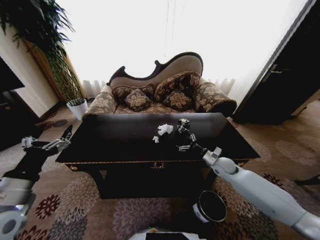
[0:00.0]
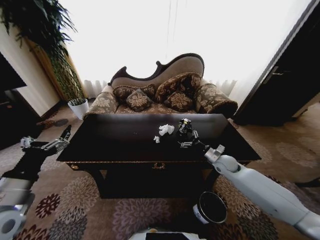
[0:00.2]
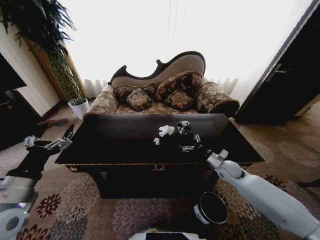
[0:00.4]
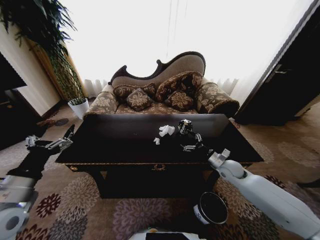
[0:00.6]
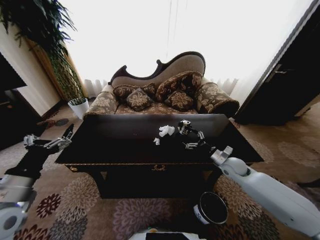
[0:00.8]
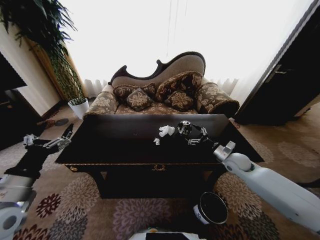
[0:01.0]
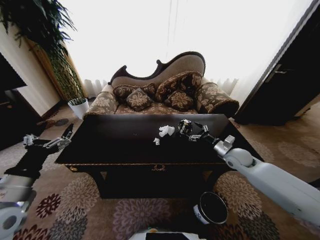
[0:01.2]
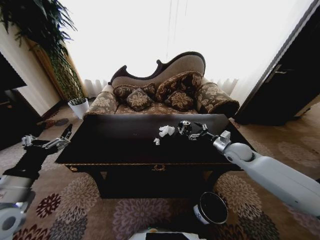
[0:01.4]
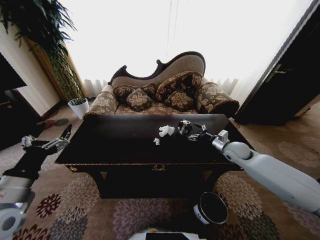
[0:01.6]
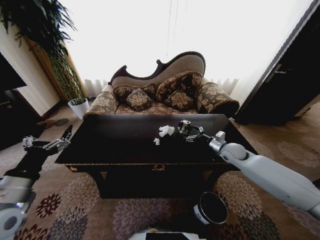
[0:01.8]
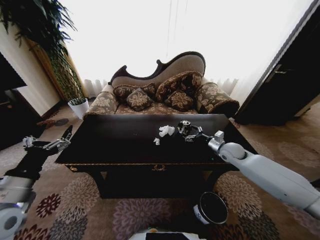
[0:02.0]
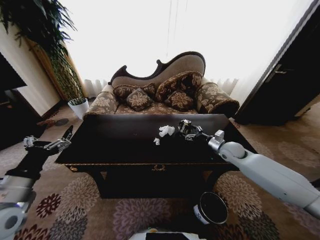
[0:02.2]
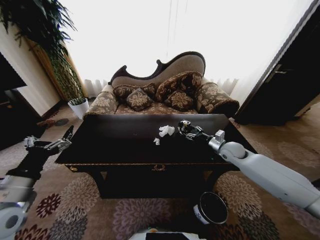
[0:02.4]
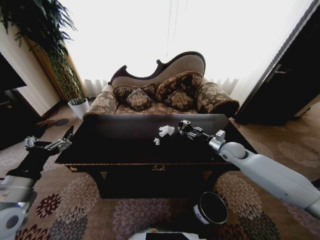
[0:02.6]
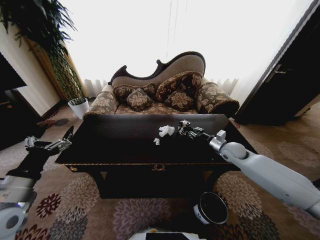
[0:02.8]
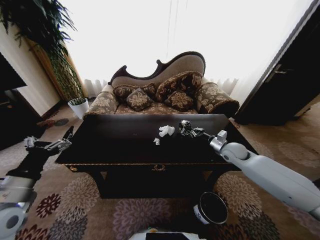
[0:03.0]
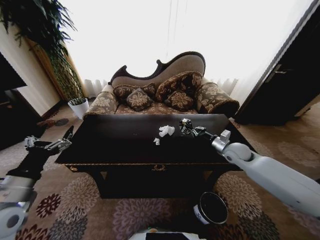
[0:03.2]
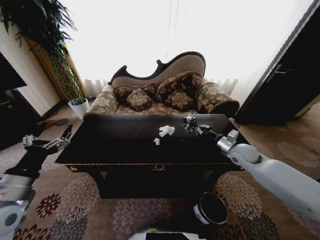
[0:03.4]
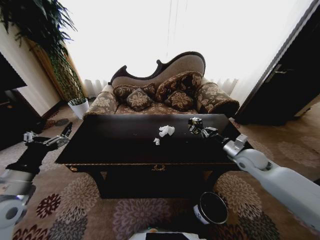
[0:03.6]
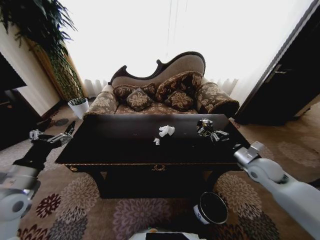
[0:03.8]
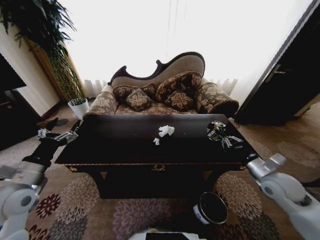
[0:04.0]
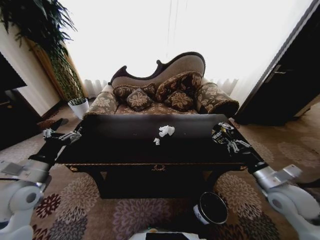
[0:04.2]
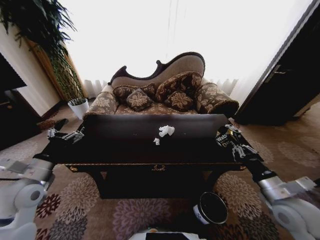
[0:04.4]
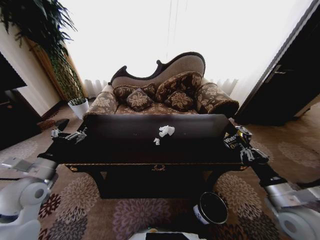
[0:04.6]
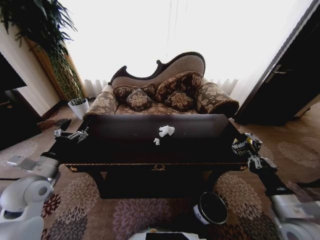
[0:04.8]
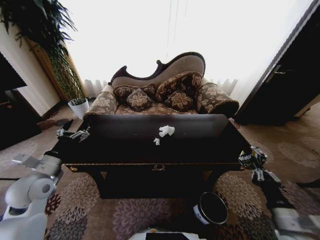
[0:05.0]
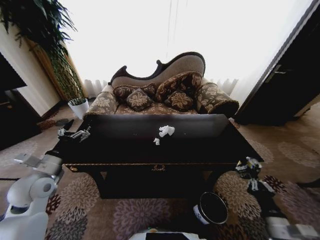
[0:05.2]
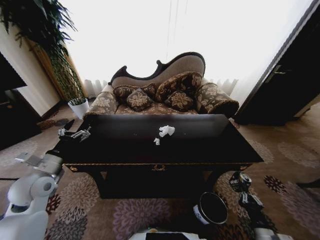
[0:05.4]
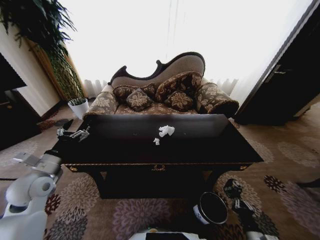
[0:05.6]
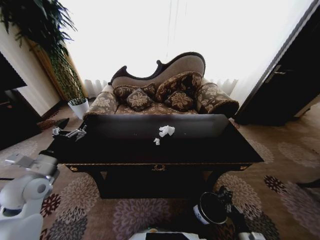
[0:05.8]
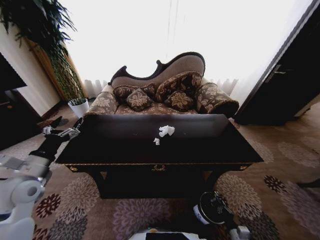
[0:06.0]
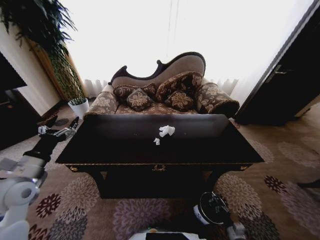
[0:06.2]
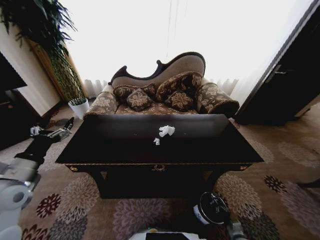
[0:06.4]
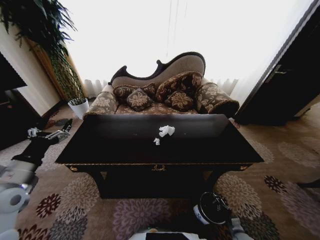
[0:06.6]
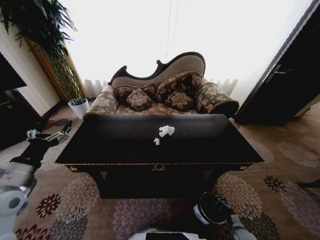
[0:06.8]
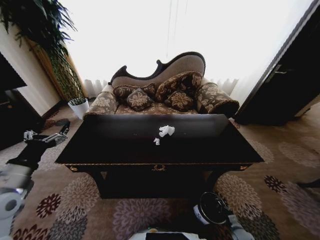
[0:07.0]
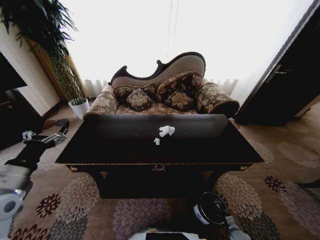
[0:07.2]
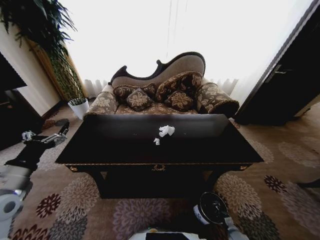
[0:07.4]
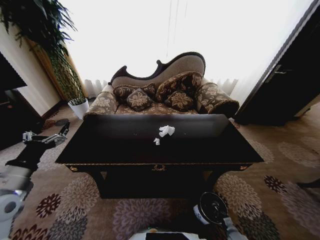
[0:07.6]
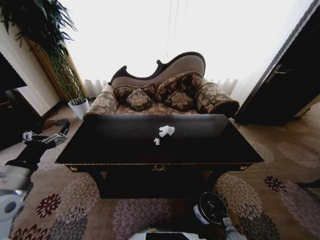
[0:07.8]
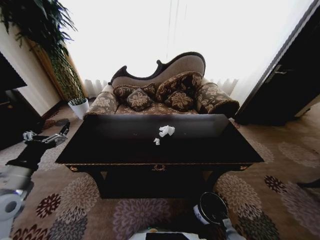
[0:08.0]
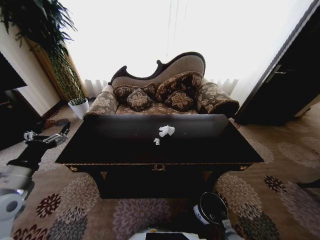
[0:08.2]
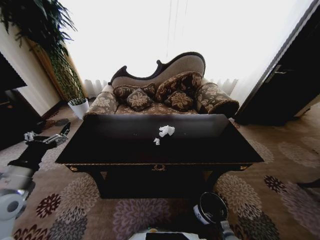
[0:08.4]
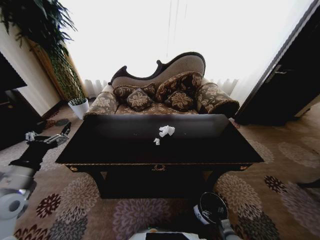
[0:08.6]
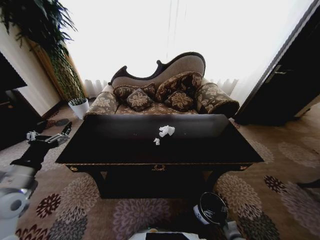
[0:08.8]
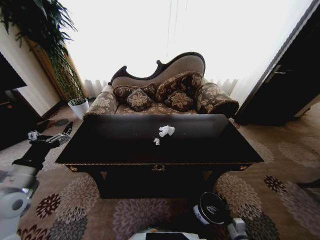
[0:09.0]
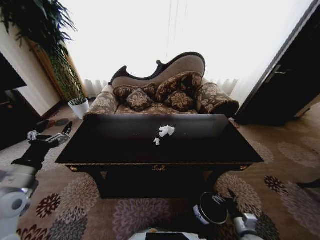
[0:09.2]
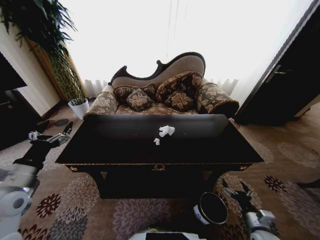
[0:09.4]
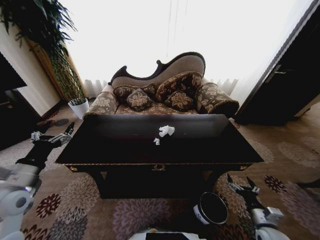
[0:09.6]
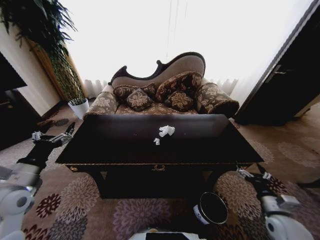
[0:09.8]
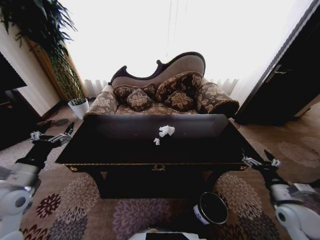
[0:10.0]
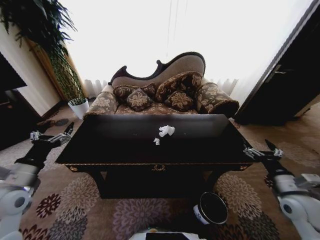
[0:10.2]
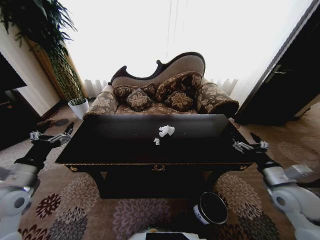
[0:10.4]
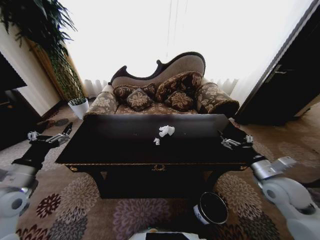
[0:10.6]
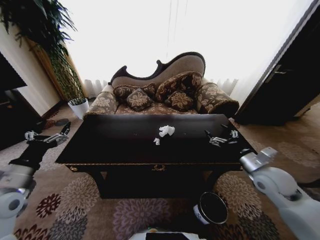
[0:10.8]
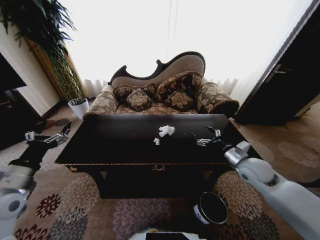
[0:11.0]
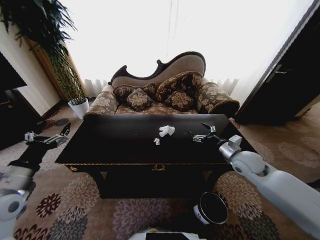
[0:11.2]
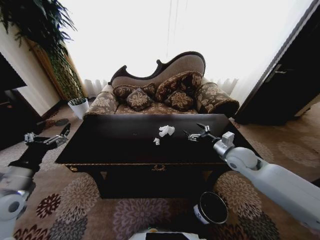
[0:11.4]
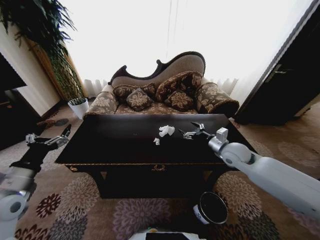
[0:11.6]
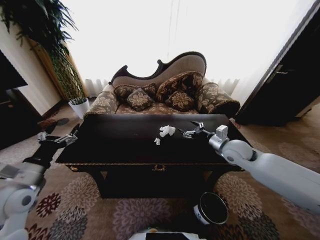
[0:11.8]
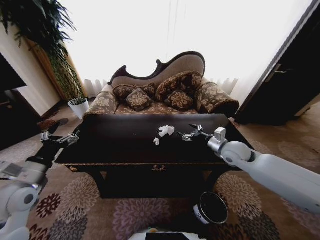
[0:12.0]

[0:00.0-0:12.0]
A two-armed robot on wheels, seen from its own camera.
Task of the whole recording: Move to the front of the table and place the trash on the table into the trash bin.
0:00.0 to 0:01.6: The right gripper goes roughly 10 cm upward.
0:01.6 to 0:03.0: The right gripper closes.
0:03.0 to 0:04.4: The left gripper travels forward by some 5 cm. Meanwhile the right gripper travels backward by some 25 cm.
0:04.4 to 0:06.0: The right gripper shifts about 35 cm downward.
0:06.0 to 0:07.6: The left gripper shifts by roughly 5 cm; the right gripper travels downward, forward and to the right by roughly 15 cm.
0:09.0 to 0:10.4: The right gripper moves upward, approximately 30 cm.
0:10.4 to 0:12.0: The right gripper heads forward and to the left, covering approximately 20 cm.

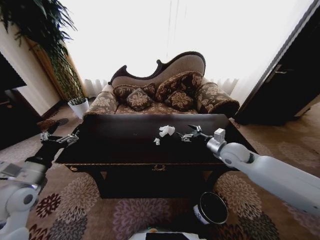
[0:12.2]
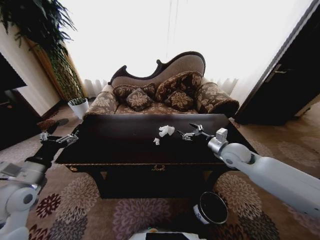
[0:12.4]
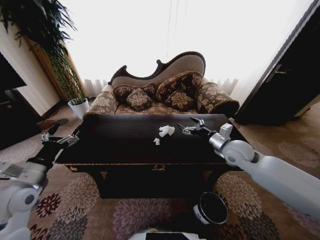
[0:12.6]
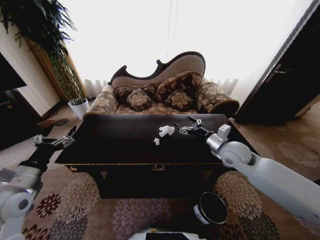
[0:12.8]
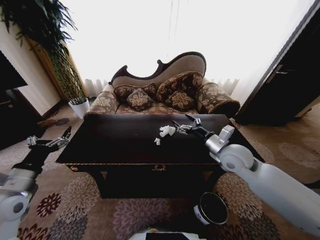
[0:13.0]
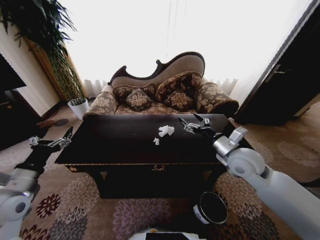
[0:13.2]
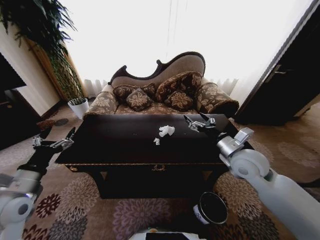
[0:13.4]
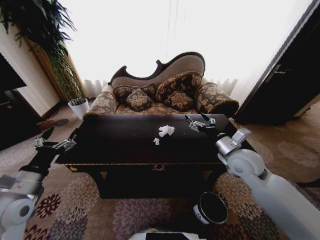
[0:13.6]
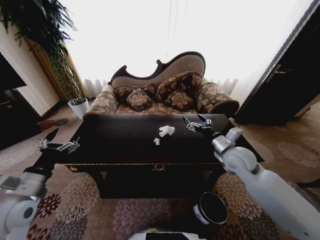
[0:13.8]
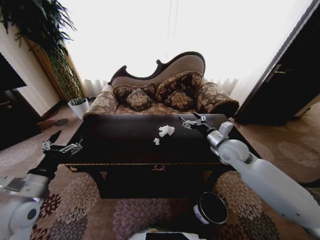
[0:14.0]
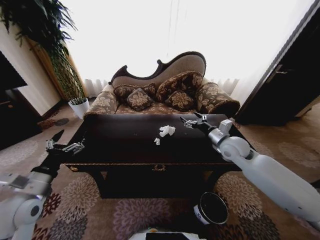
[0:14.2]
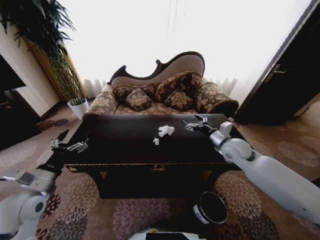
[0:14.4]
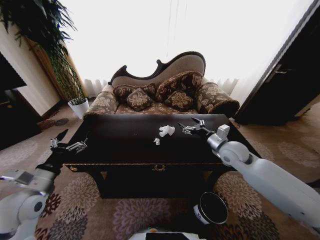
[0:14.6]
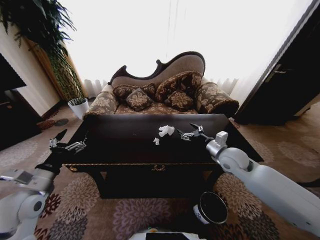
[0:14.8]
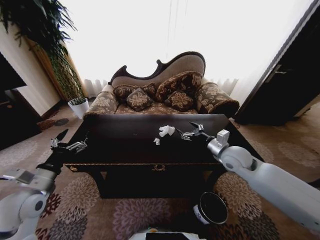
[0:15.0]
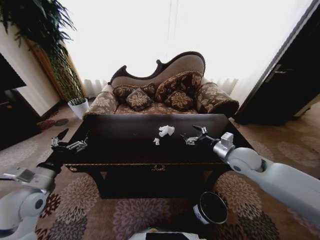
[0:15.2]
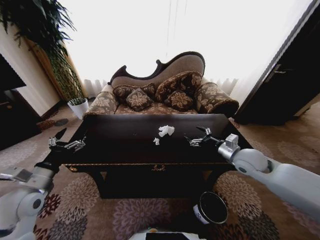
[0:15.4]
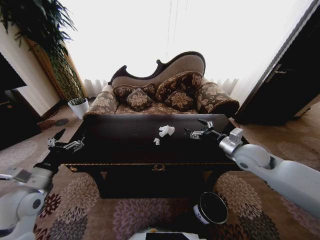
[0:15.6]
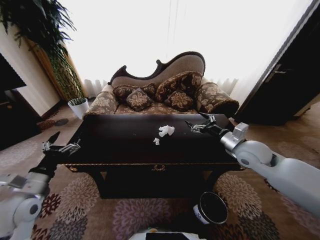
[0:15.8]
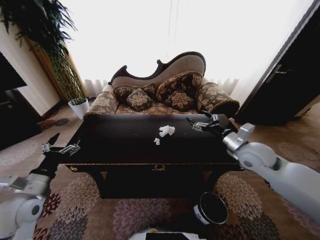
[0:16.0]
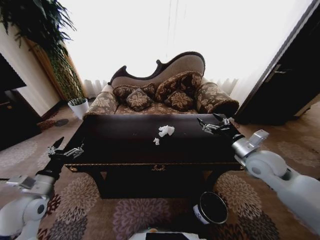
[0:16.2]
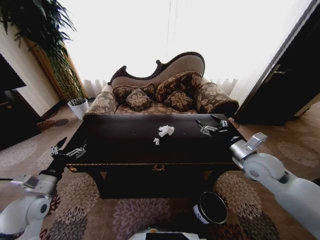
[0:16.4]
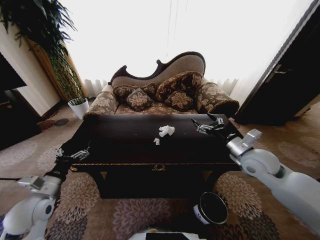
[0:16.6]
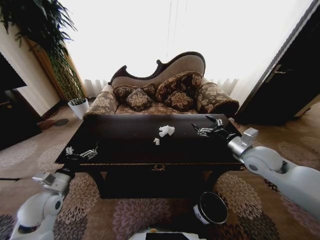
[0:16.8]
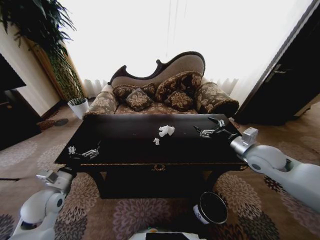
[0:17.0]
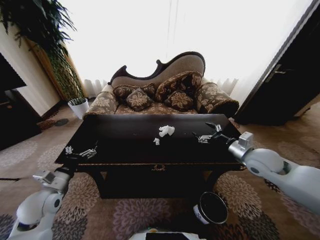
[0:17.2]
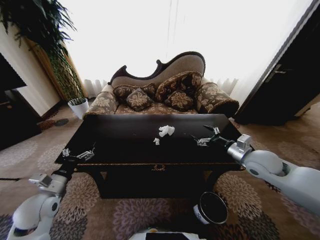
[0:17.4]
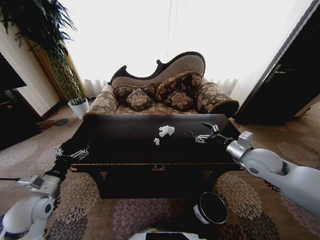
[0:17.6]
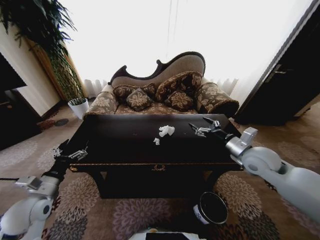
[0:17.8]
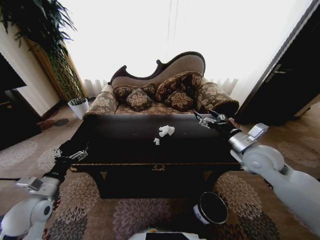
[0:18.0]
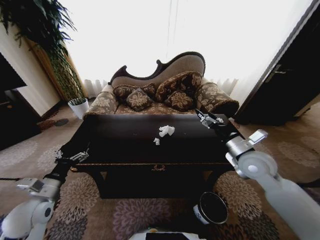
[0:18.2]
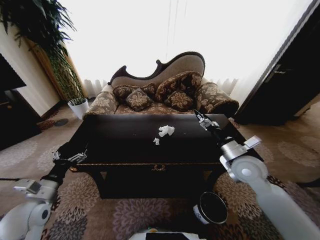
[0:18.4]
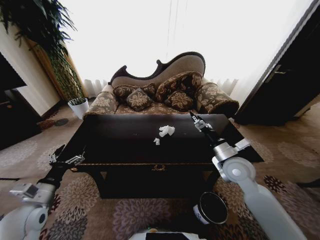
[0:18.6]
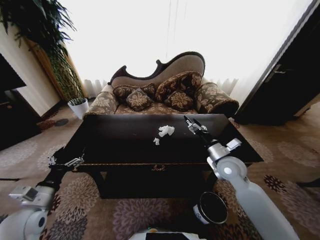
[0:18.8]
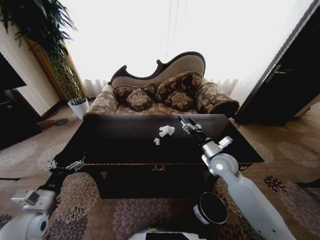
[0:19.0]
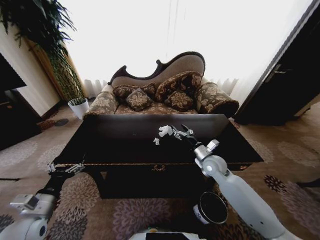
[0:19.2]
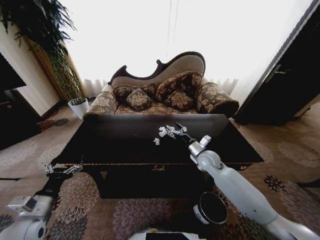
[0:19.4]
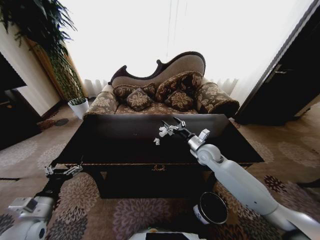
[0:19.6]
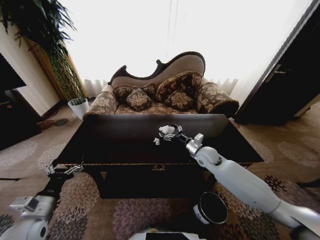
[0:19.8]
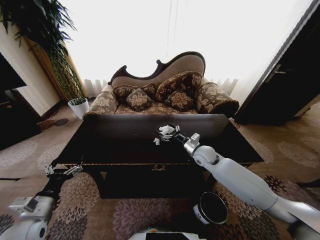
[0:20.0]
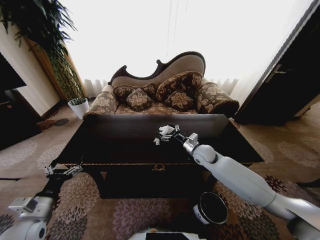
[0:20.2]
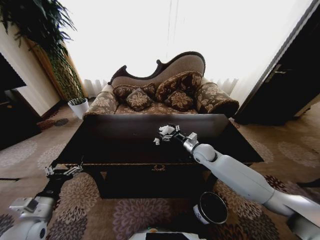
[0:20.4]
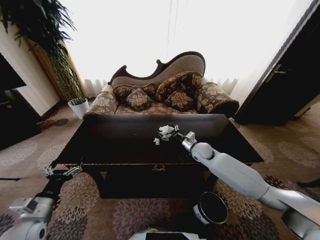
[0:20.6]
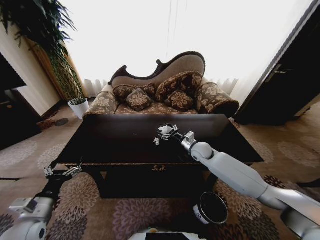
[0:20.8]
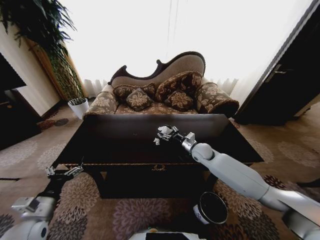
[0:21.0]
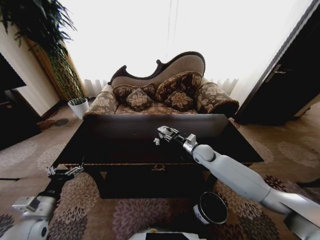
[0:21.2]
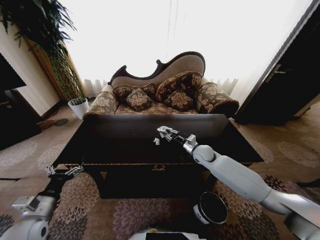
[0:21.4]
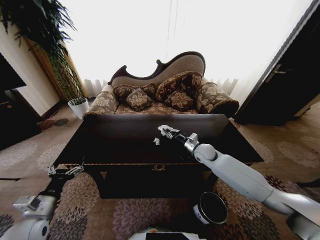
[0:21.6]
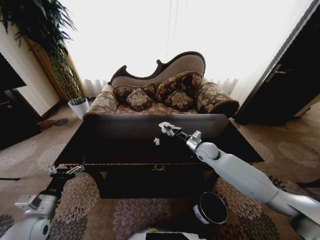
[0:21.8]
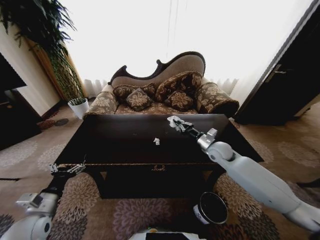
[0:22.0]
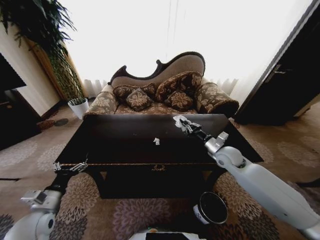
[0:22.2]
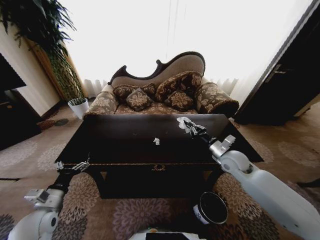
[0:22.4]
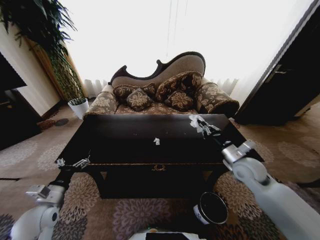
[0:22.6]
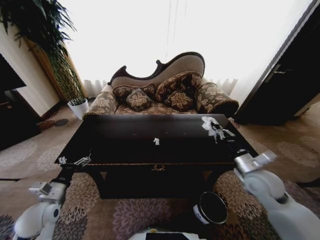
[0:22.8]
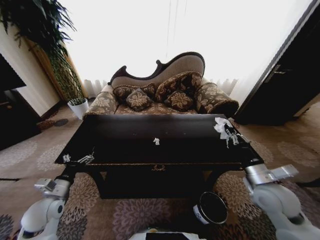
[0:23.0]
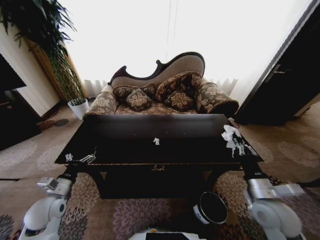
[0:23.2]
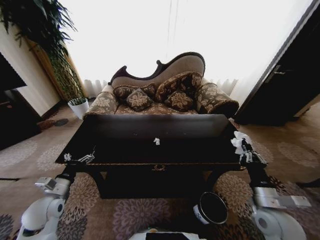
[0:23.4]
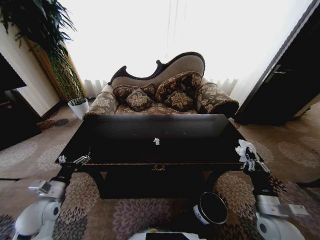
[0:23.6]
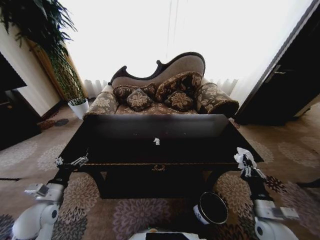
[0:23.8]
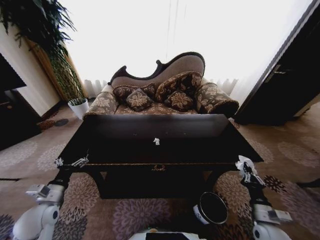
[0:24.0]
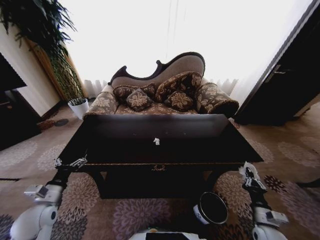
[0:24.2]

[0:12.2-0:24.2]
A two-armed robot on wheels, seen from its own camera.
Task of the whole recording: Move to the front of the table and place the trash on the table into the trash bin.
0:18.2 to 0:19.8: The left gripper heads backward, covering approximately 5 cm; the right gripper heads downward, forward and to the left, covering approximately 20 cm.
0:19.8 to 0:21.2: The right gripper closes up.
0:21.2 to 0:22.6: The right gripper heads backward, to the right and upward, covering approximately 15 cm, and closes up.
0:22.6 to 0:24.2: The right gripper heads downward, backward and to the right, covering approximately 30 cm.
